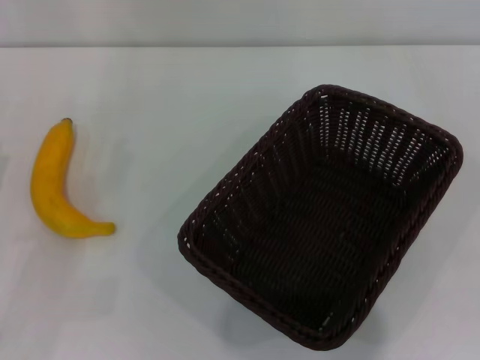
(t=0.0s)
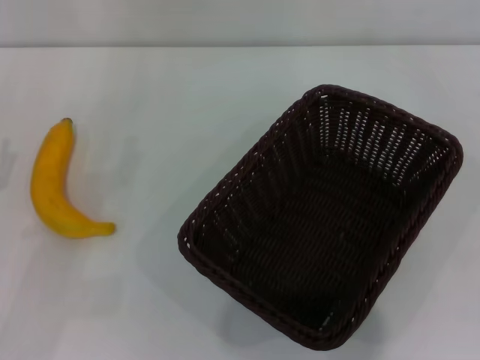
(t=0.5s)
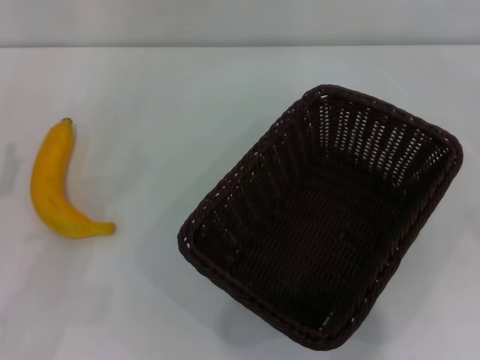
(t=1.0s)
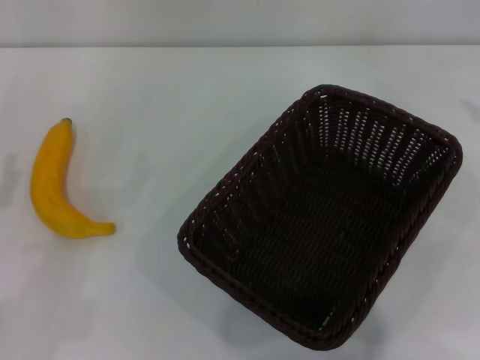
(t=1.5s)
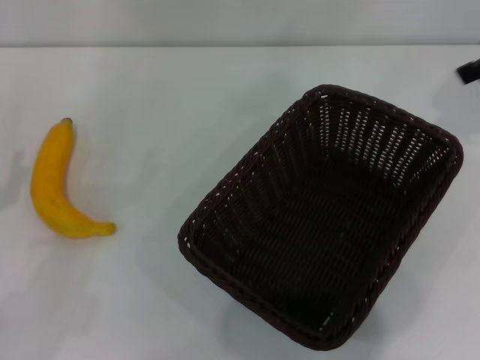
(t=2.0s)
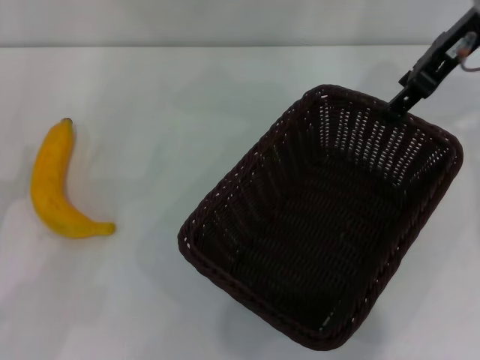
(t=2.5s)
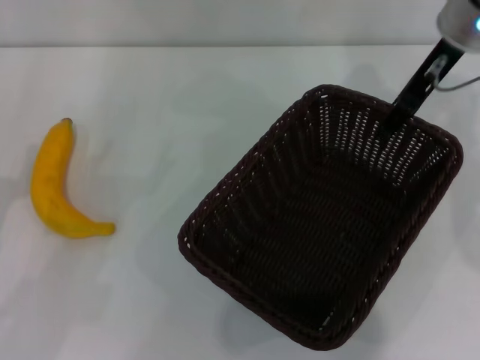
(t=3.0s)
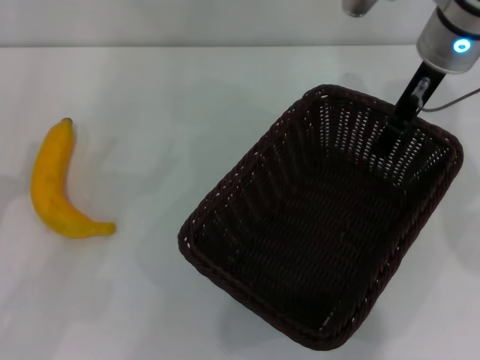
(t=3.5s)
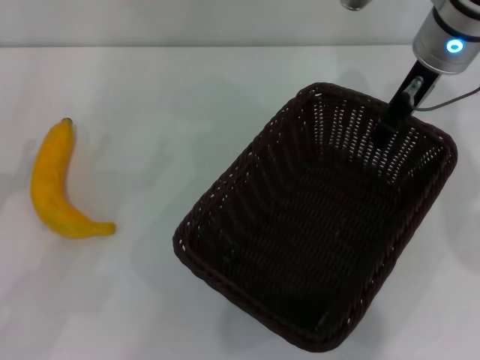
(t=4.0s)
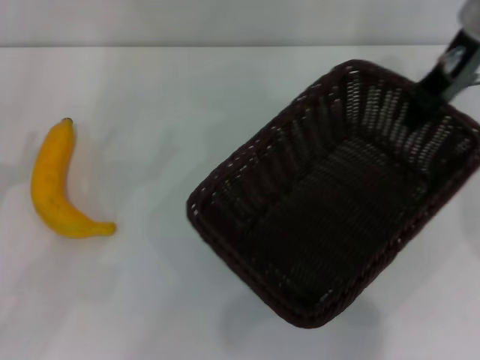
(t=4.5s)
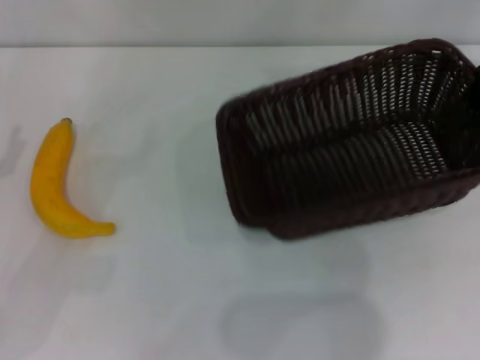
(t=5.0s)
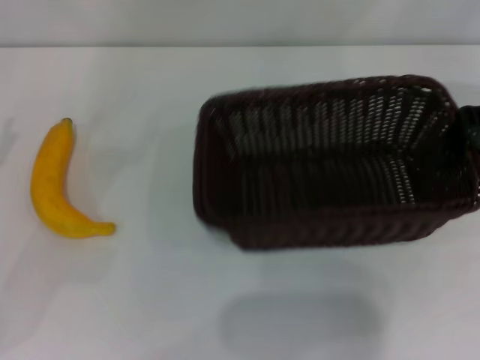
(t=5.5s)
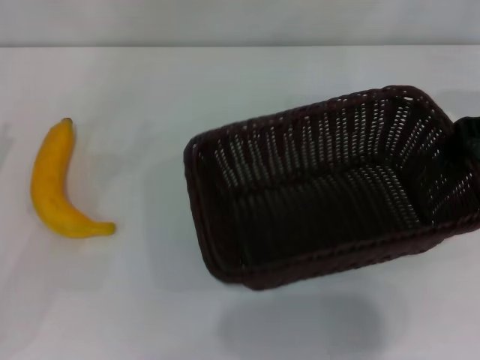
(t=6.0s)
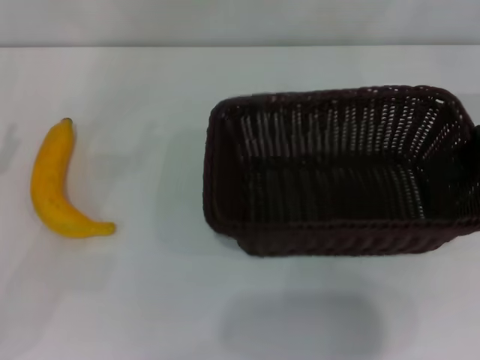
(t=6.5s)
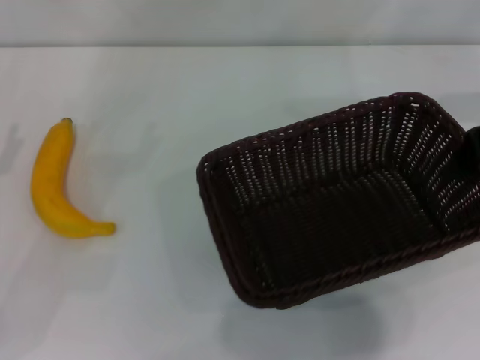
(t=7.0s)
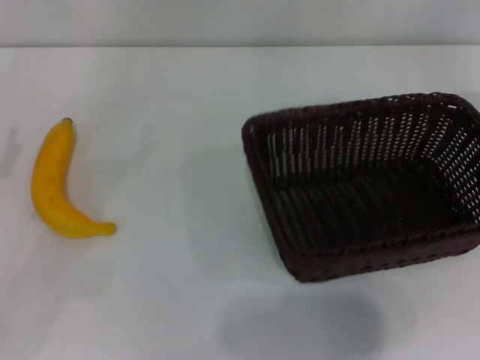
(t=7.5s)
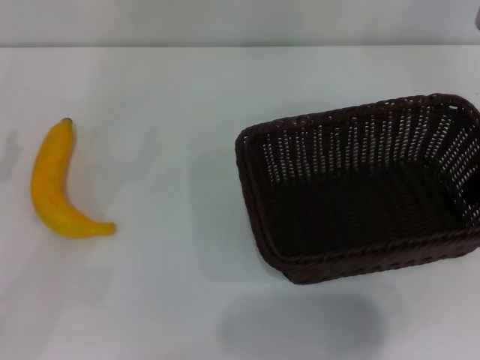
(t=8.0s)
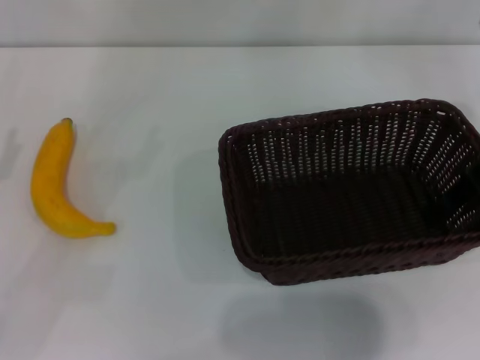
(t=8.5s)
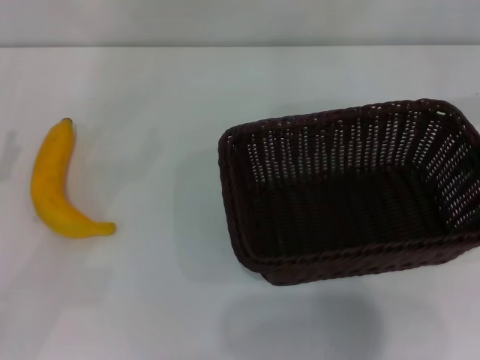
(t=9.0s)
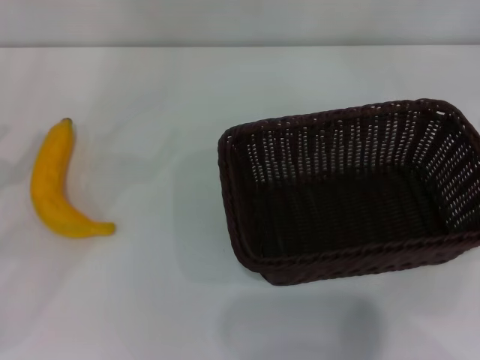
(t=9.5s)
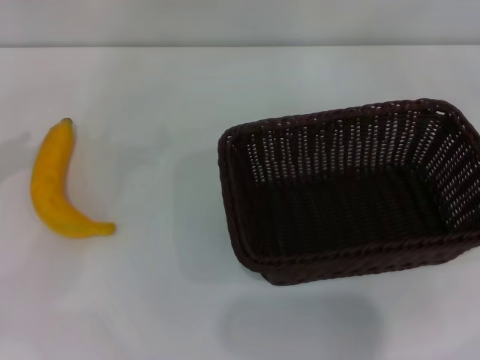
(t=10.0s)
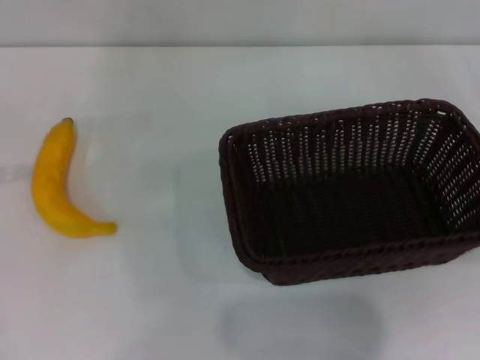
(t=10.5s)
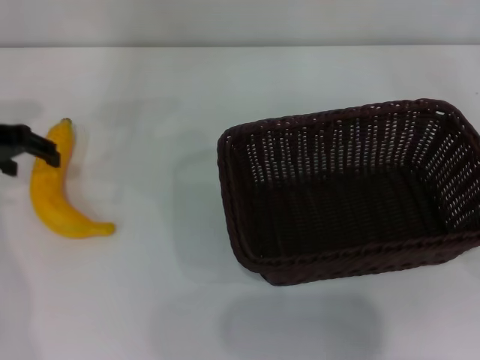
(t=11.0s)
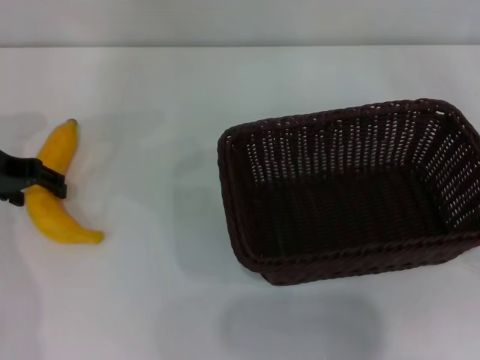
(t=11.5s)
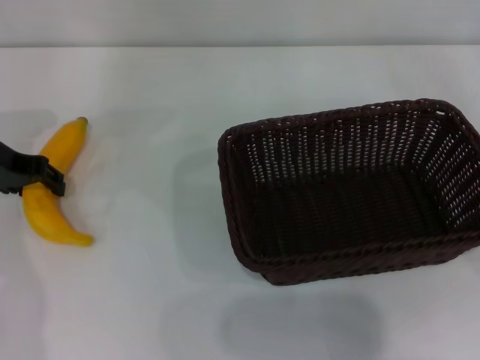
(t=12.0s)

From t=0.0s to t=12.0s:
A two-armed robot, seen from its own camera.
Step, from t=0.0s to t=4.0s: Pick up the dark basket with the right gripper.
Step, from t=4.5s to t=8.0s: Place the dark basket in the center of view with the right gripper.
From t=2.0s to t=4.0s: The right gripper is displaced to the left and downward by about 15 cm, and closes up.
From t=4.0s to t=6.0s: The right gripper goes roughly 15 cm to the right and backward.
From t=6.0s to t=8.0s: The right gripper opens.
From t=8.0s to t=10.0s: The left gripper is displaced upward and forward by roughly 10 cm. Meanwhile the right gripper moves to the right and backward, some 20 cm, and opens its fingers.
From t=10.0s to t=12.0s: The left gripper heads to the right and forward, covering approximately 15 cm, and closes its fingers.

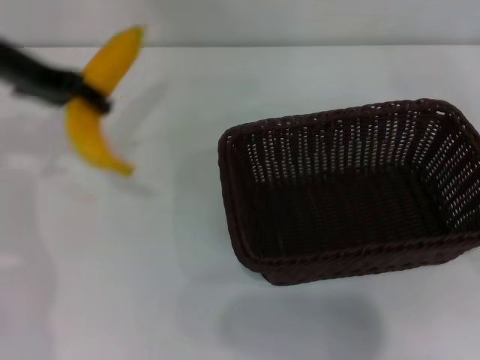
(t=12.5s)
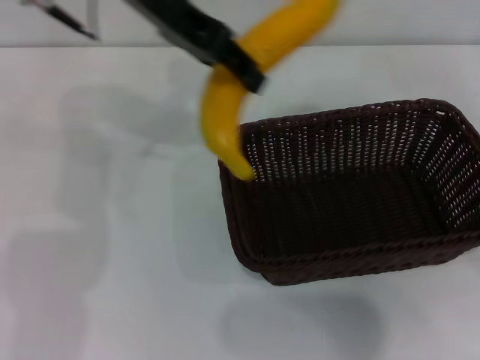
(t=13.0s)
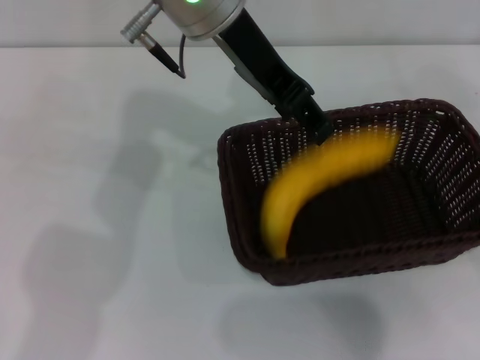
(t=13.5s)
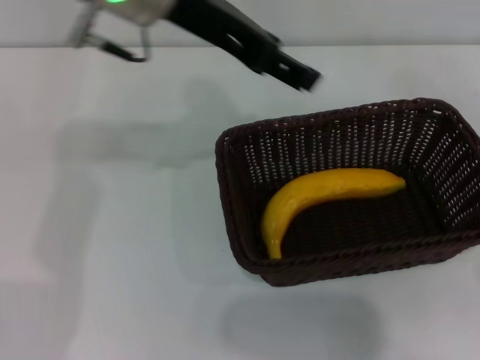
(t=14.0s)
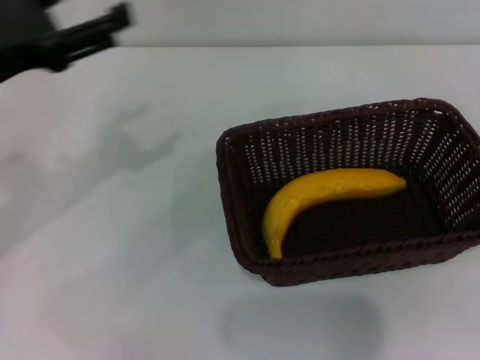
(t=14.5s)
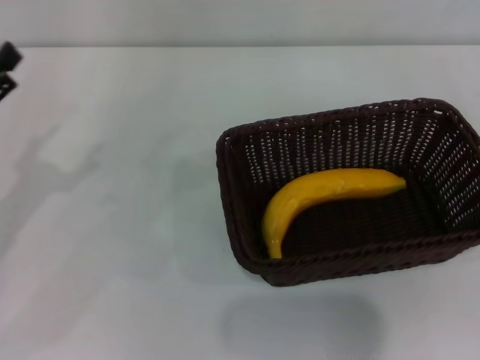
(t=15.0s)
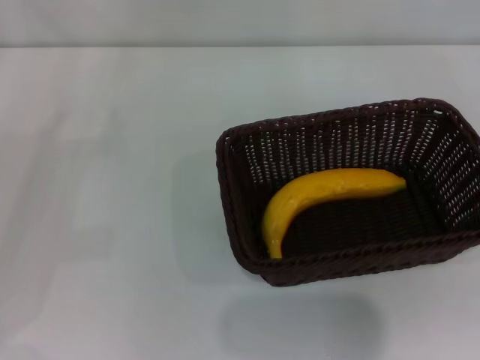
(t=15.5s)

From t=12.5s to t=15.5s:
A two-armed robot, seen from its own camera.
Step, from t=12.5s to t=13.5s: Place the banana into the dark basket with the left gripper.
From t=12.5s to t=14.0s: The left gripper goes about 15 cm to the right and upward, and opens its fingers.
From t=14.0s to t=15.5s: The left gripper moves to the left and downward, about 35 cm.

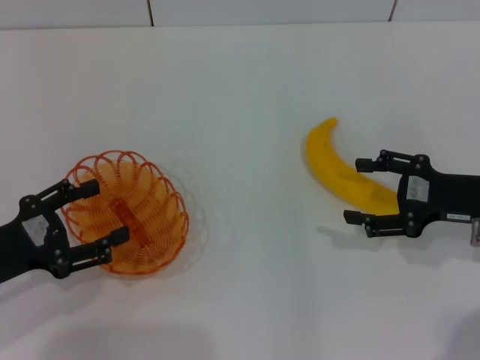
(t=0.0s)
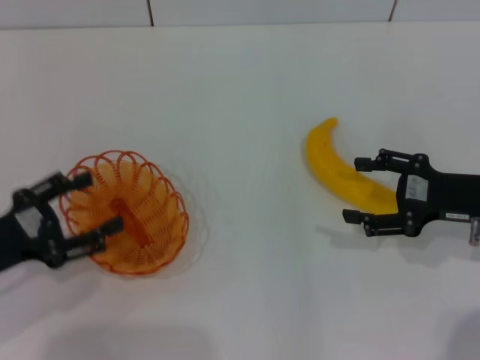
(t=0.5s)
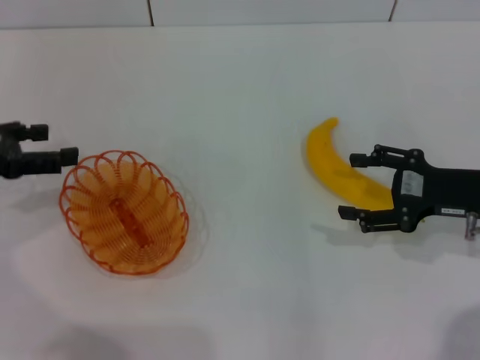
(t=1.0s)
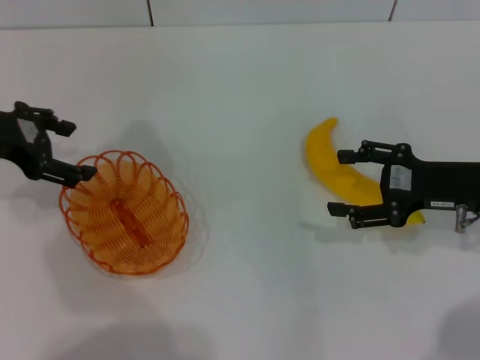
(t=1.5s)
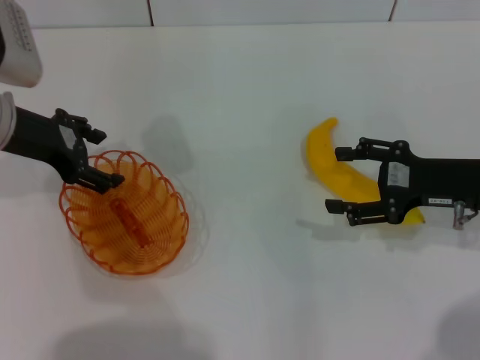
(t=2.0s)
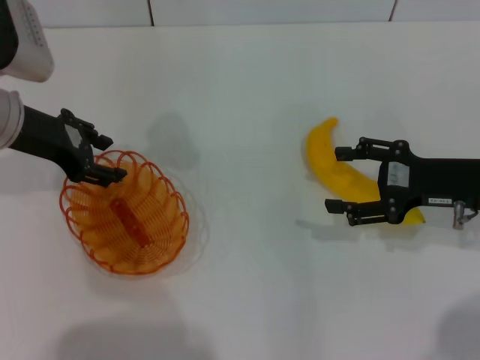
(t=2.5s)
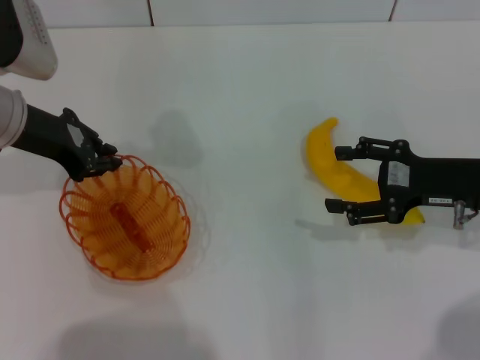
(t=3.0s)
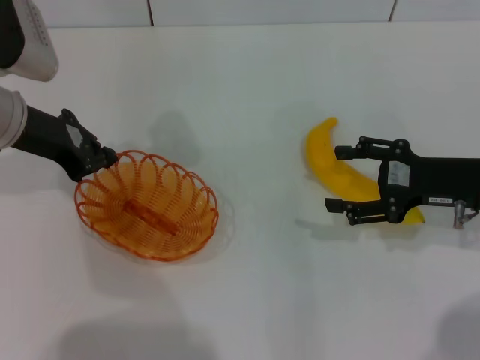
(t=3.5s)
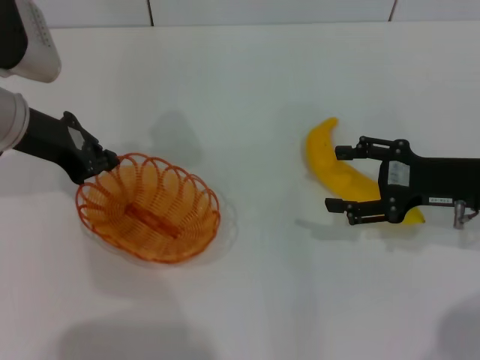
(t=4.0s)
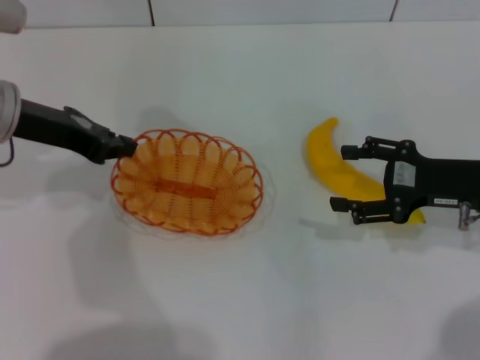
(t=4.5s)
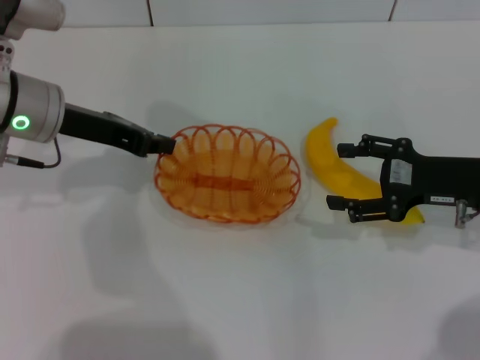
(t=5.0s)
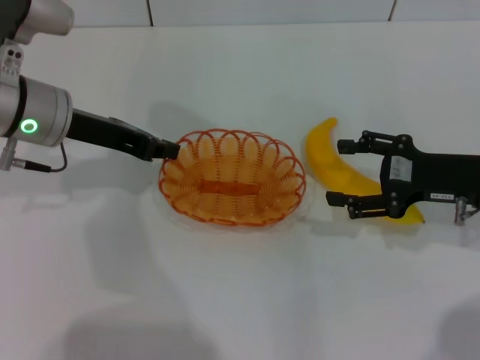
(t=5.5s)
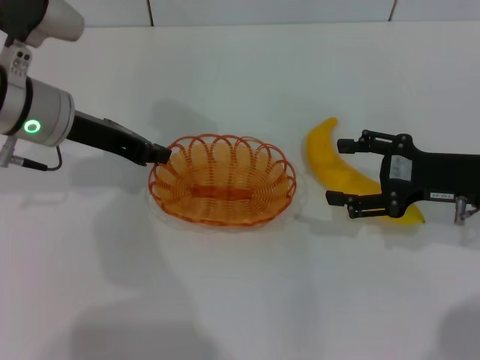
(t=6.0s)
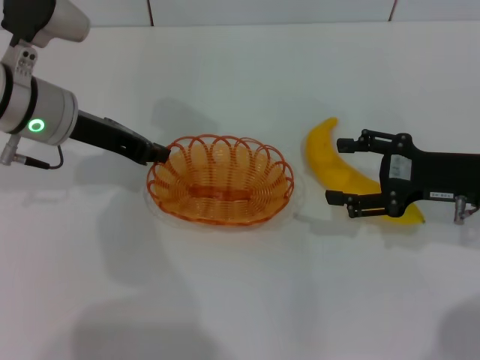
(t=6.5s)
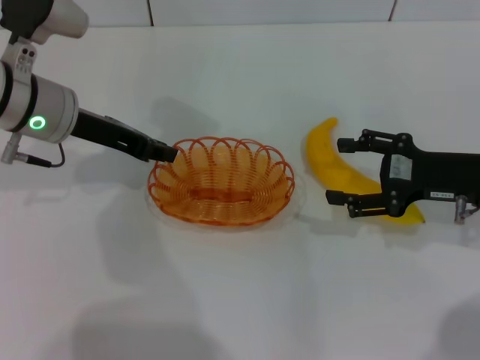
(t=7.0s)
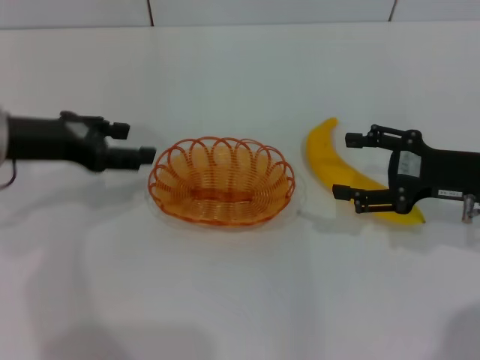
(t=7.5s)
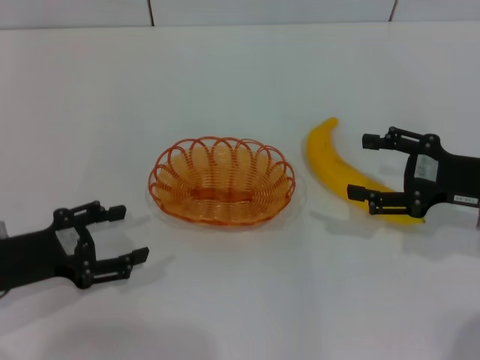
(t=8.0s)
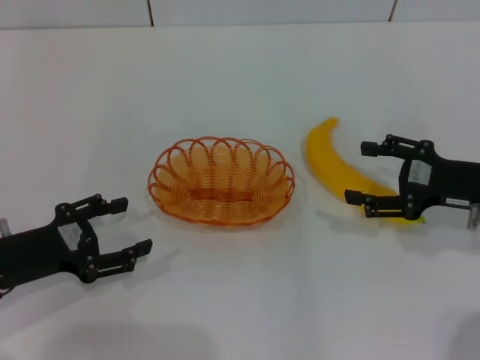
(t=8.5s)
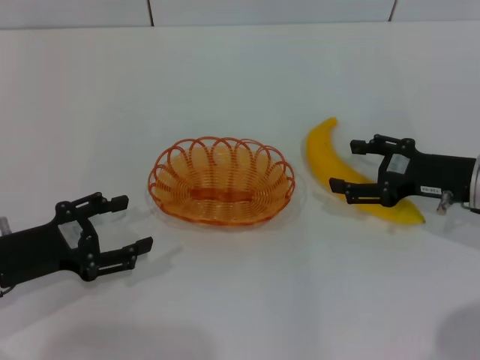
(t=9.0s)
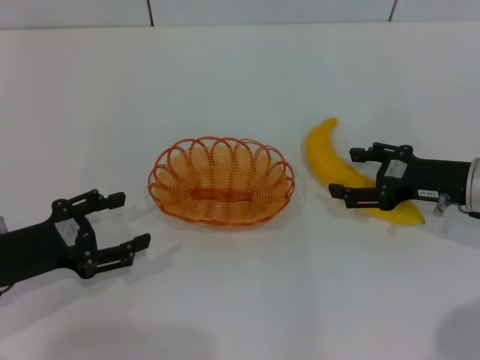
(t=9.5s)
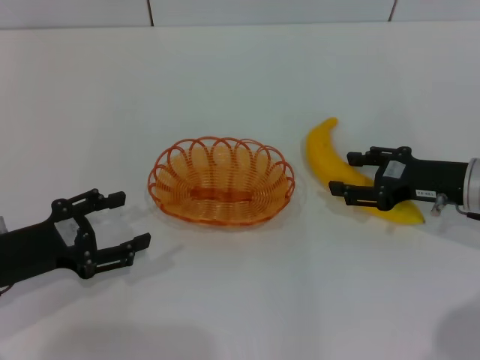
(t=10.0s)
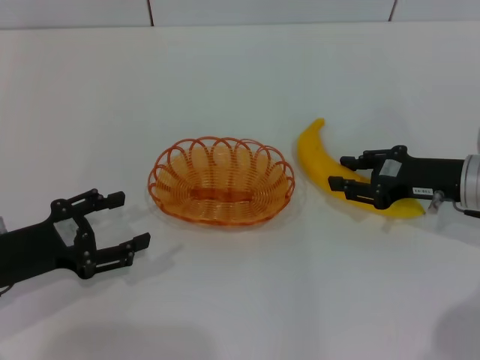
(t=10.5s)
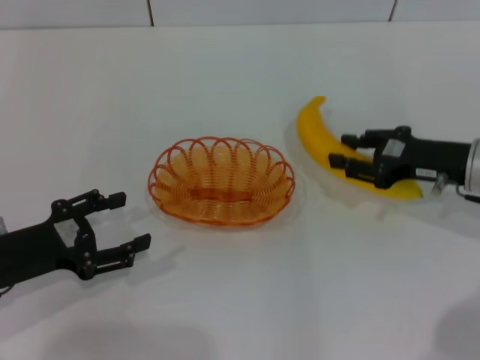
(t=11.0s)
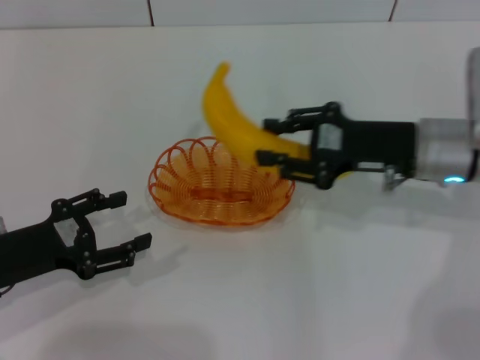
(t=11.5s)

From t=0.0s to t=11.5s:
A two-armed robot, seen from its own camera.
Step, from t=0.0s to t=4.5s: Pick up the basket with the left gripper.
Step, from t=5.0s to t=7.5s: Place the basket in the center of view with the left gripper.
Step, from t=8.0s to t=11.0s: Pick up the banana with the right gripper.
From t=0.0s to t=2.0s: The left gripper heads forward and upward, covering about 20 cm.
From t=2.0s to t=4.0s: The left gripper closes its fingers.
From t=6.0s to t=7.5s: The left gripper ends up approximately 5 cm from where it was, and opens up.
From t=7.5s to t=9.5s: The left gripper goes some 15 cm downward and backward, and opens.
From t=9.5s to t=11.5s: The right gripper moves to the left, roughly 5 cm, and closes its fingers.
